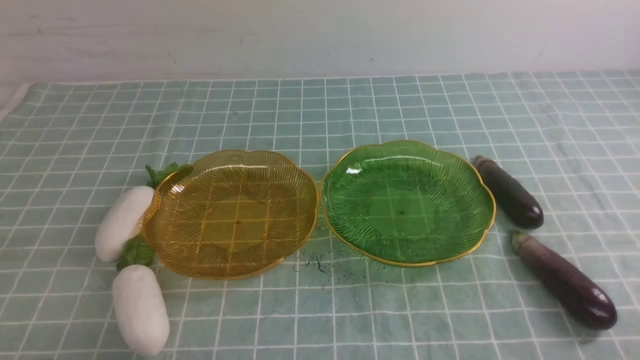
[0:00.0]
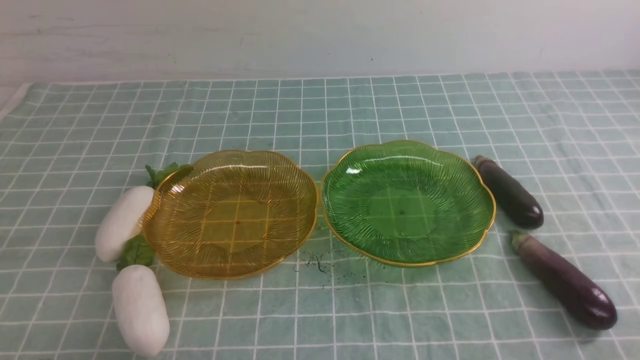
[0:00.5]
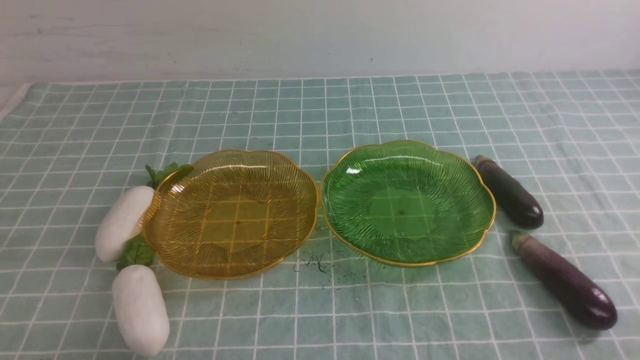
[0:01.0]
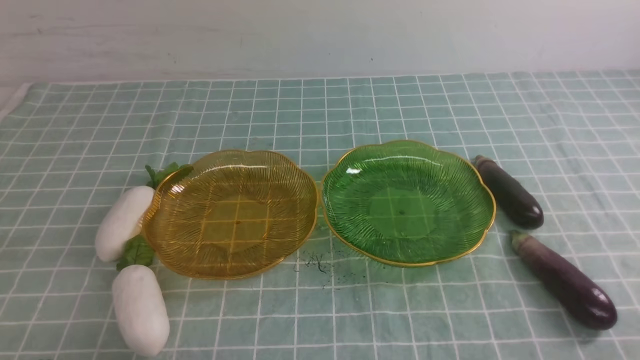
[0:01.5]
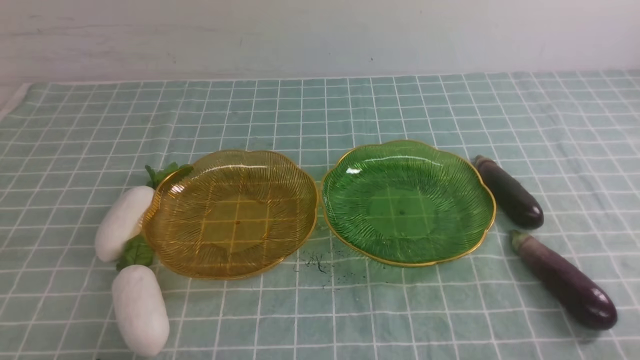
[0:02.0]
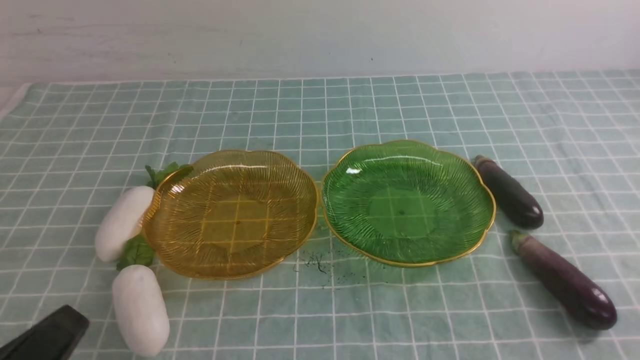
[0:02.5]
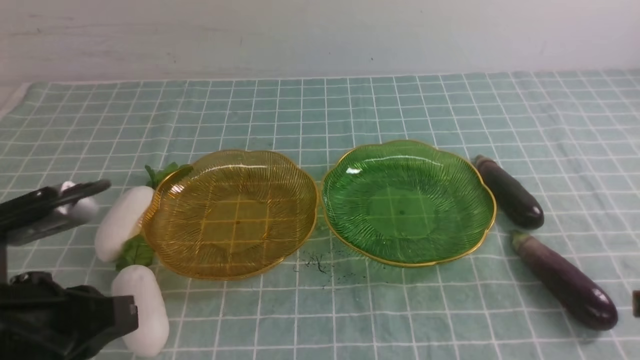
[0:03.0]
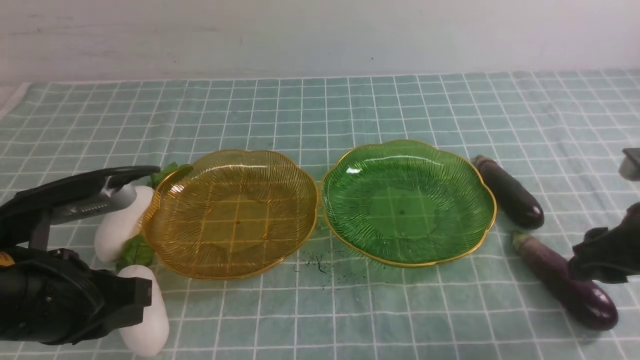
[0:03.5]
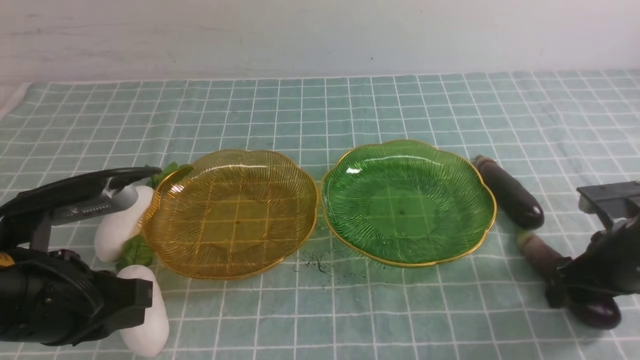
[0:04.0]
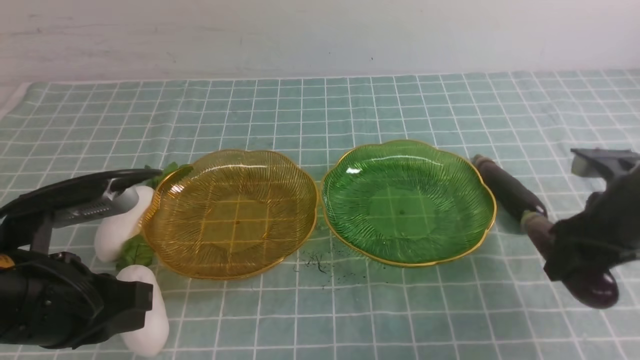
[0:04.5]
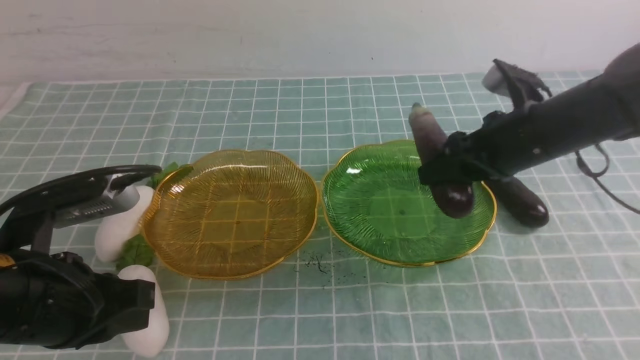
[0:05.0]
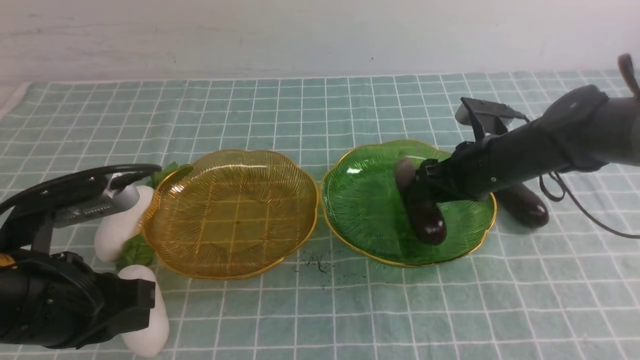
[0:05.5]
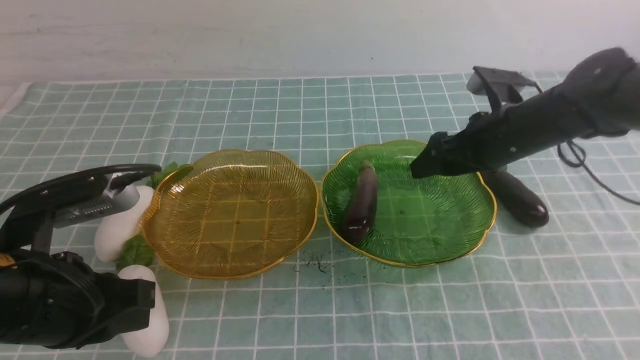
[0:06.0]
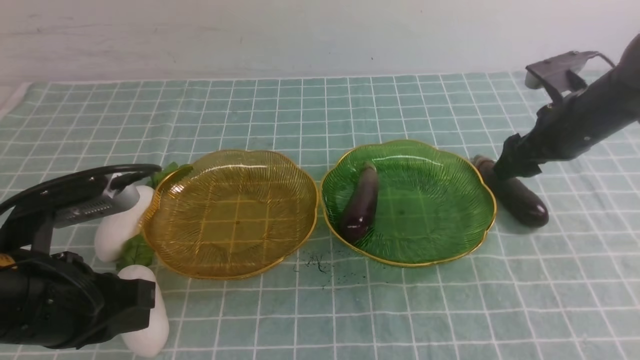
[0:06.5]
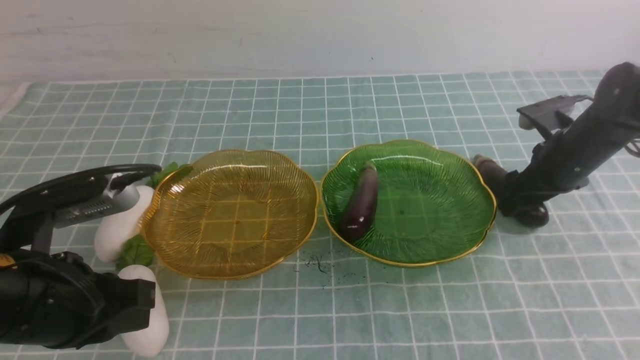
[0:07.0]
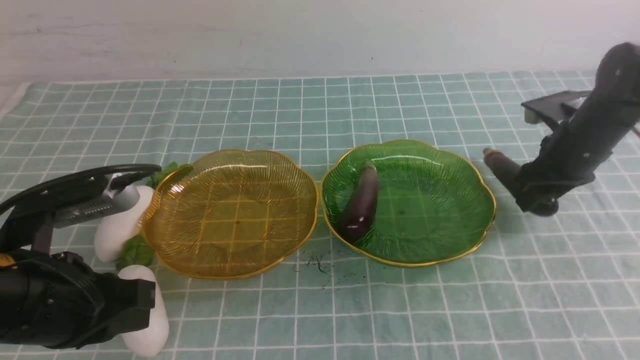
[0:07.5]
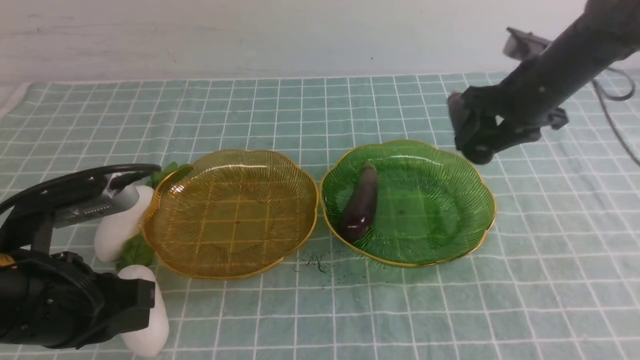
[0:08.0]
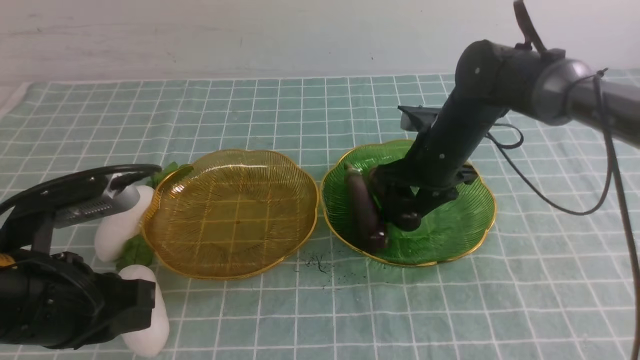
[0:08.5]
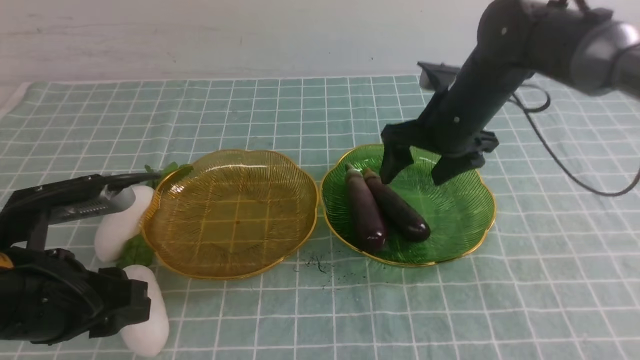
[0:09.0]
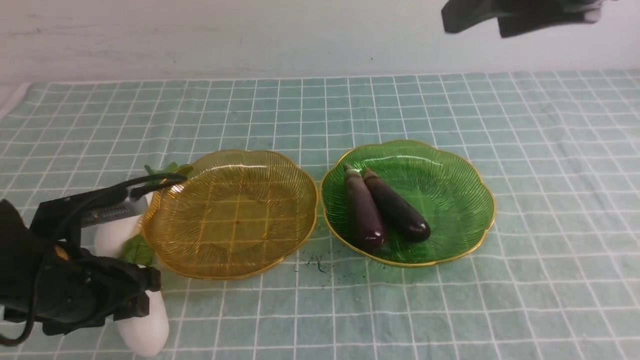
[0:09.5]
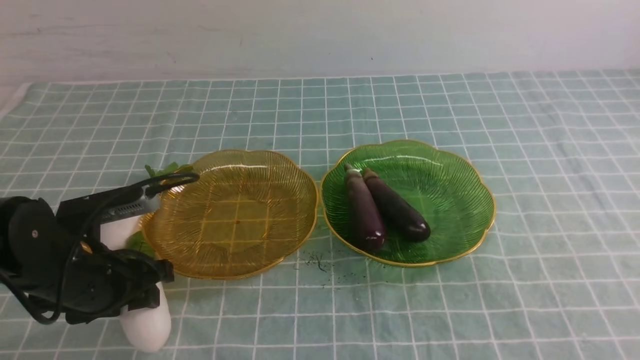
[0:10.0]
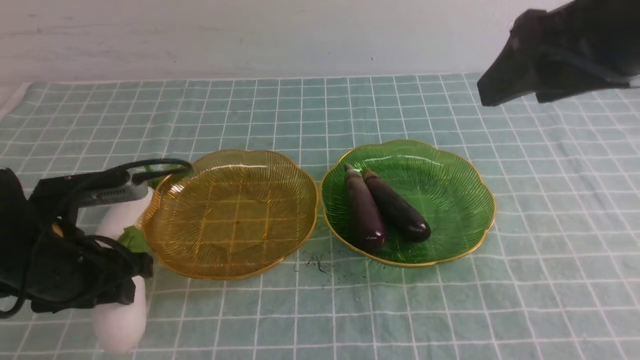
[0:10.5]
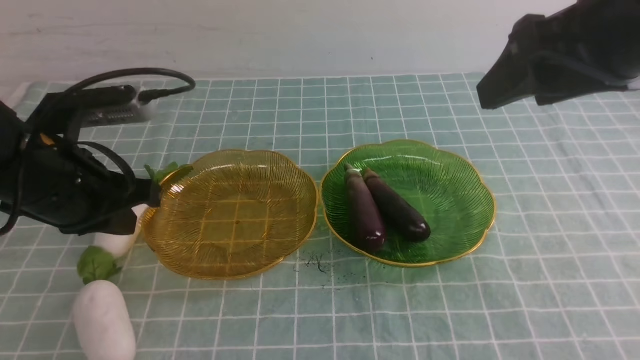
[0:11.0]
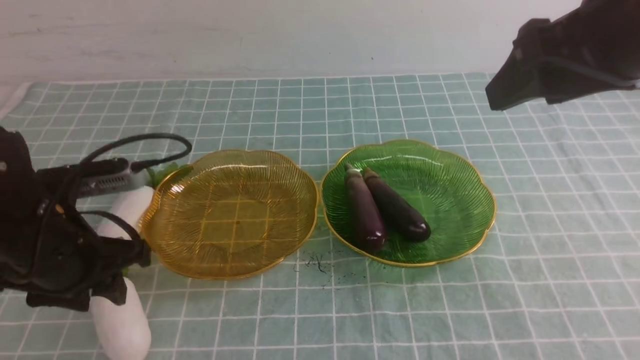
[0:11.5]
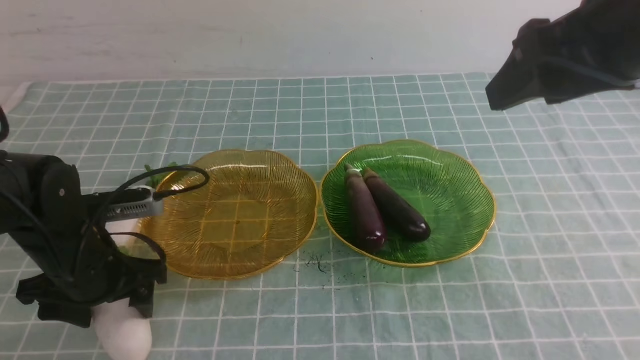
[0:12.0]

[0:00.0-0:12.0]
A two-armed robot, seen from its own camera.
Step, 0:00.0 to 0:08.5: use the right arm to grab an eggplant and put it into the right plate.
0:02.0 to 0:04.0: The right gripper is displaced forward by approximately 25 cm, and opens up. The left gripper goes approximately 15 cm forward and upward.
0:04.0 to 0:06.0: The right gripper heads forward, to the left and upward, covering roughly 15 cm.
0:06.0 to 0:08.0: The right gripper goes to the right and returns, some 10 cm each way, and closes.
0:08.0 to 0:10.0: The right gripper shifts approximately 30 cm upward and backward. The left gripper goes approximately 10 cm downward and forward, and opens.
0:10.0 to 0:12.0: The left gripper travels upward and back again, some 10 cm each way, and closes and opens again. Meanwhile the right gripper is displaced downward by about 5 cm.

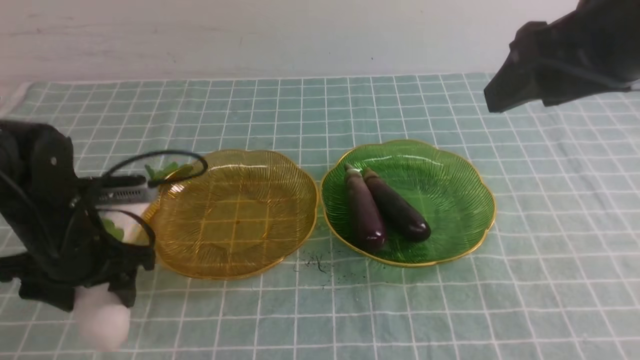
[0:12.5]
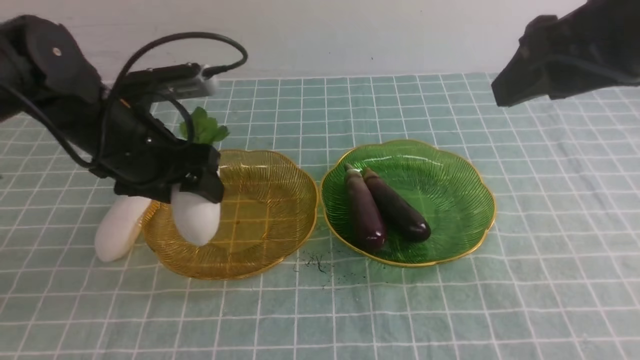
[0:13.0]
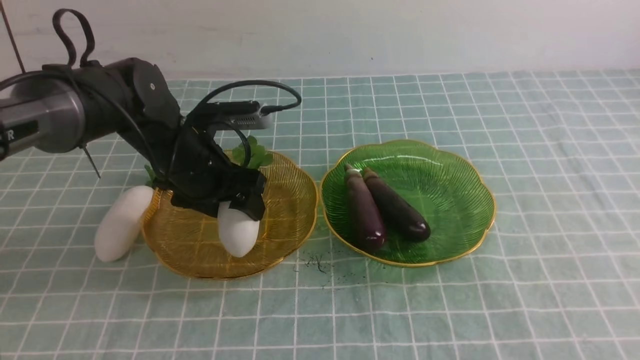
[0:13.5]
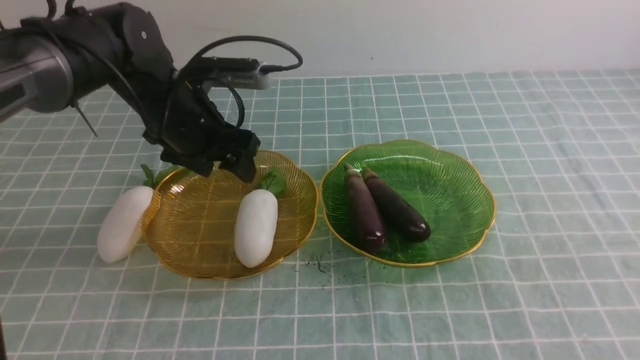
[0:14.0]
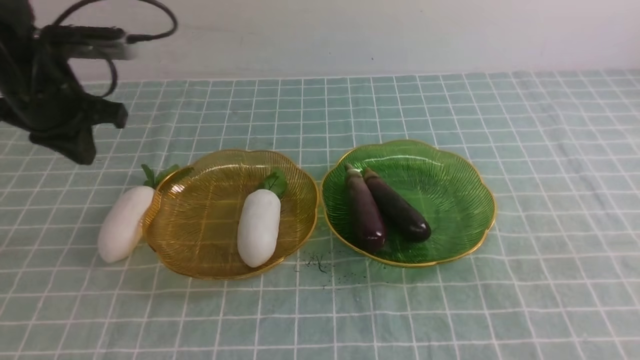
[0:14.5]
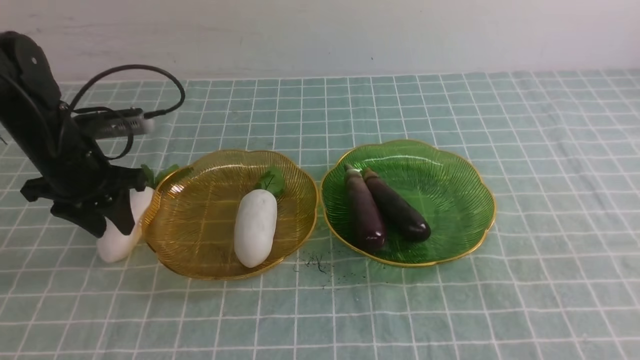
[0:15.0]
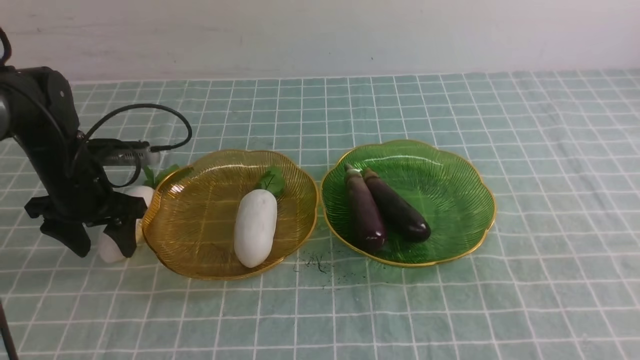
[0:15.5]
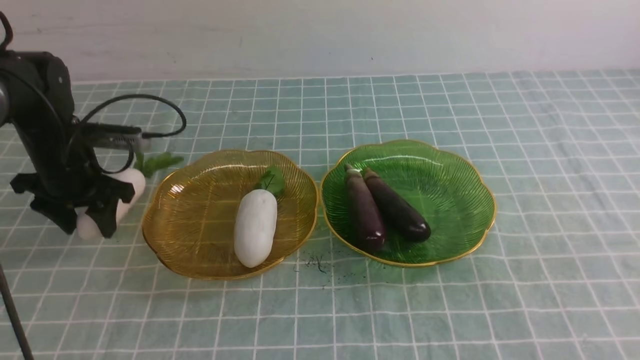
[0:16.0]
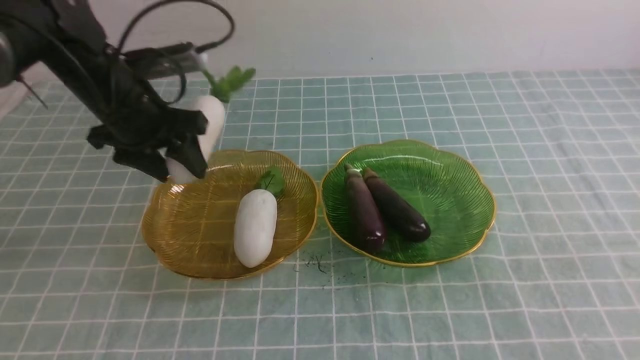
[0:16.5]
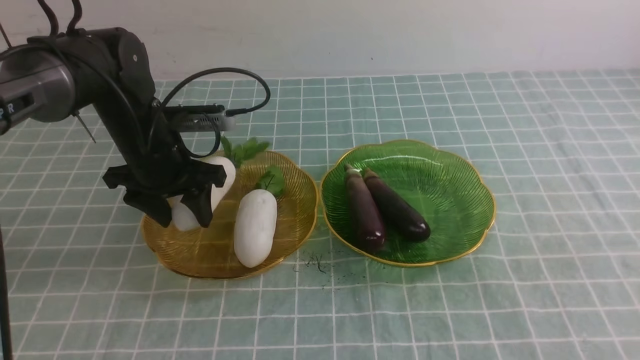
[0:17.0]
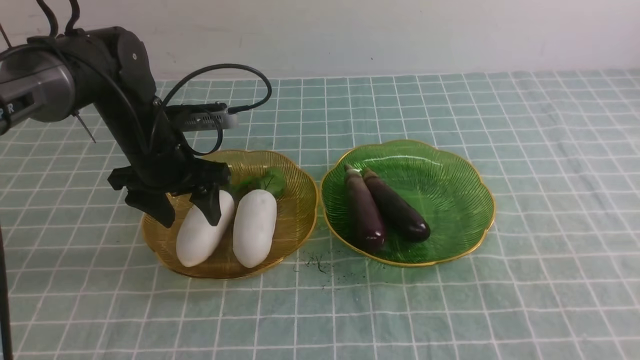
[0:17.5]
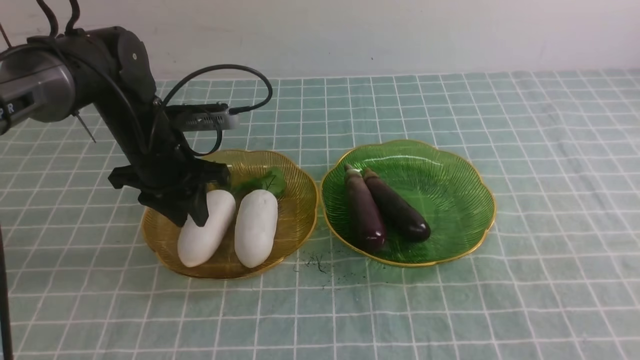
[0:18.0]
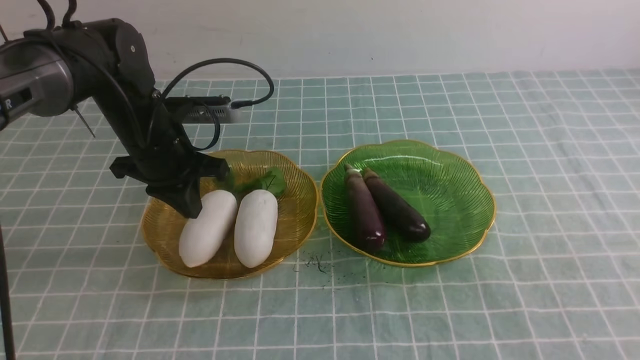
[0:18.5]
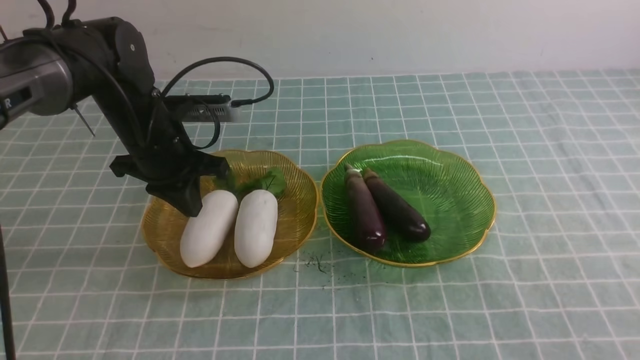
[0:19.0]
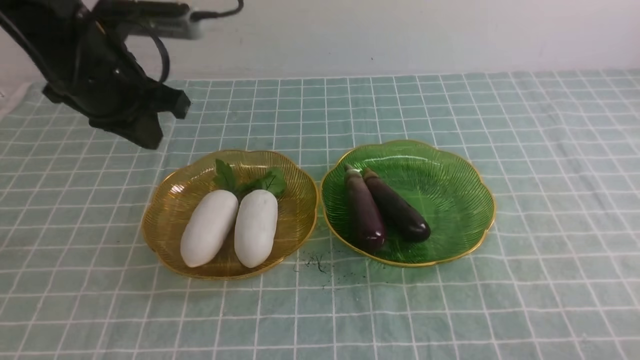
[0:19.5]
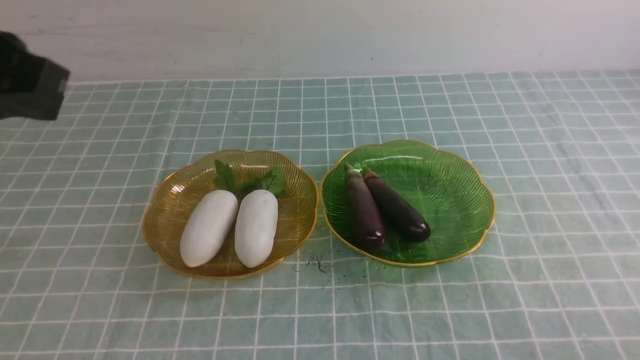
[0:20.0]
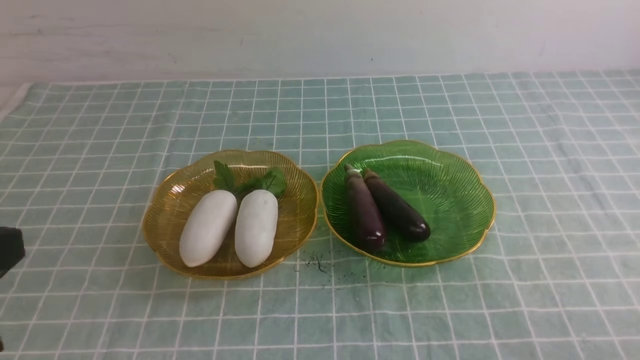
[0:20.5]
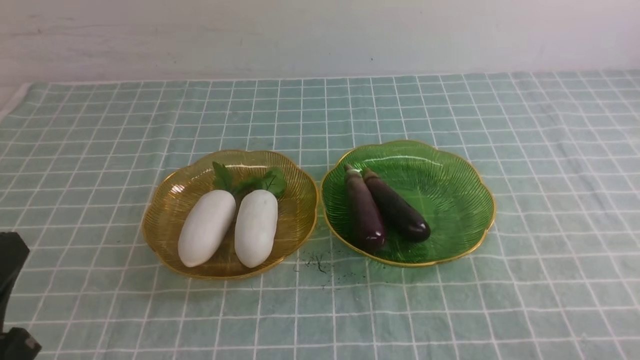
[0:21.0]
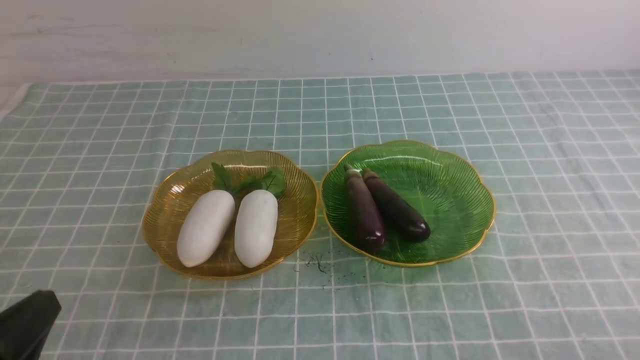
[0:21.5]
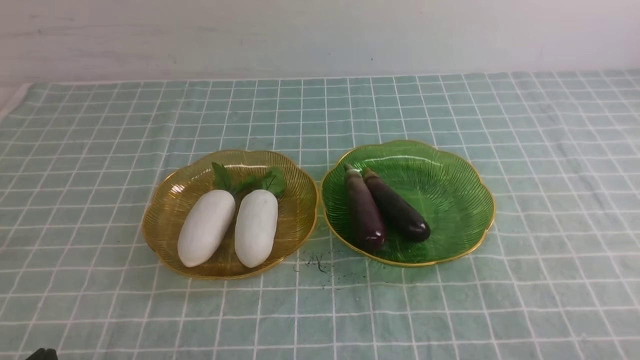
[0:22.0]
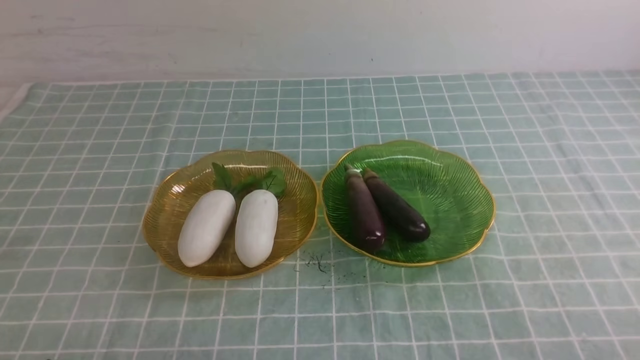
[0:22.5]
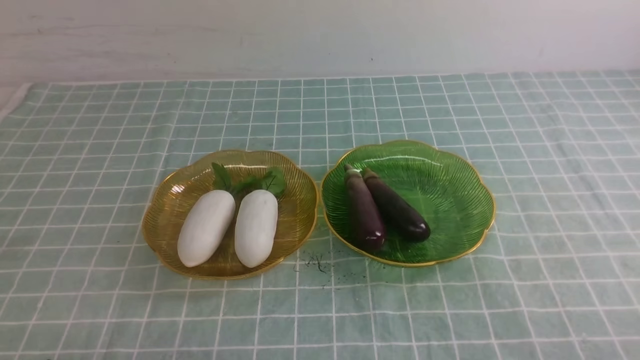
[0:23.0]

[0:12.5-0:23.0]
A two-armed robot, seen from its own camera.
Step, 0:14.0 to 0:17.0: use the left arm to grab a radish and put it into the left plate.
0:12.5 to 0:14.5: The left gripper moves forward and upward, about 10 cm, and closes its fingers, while the right gripper shifts about 20 cm backward and to the right, and closes up.
0:14.5 to 0:16.5: The left gripper heads to the right, covering some 5 cm, moves roughly 10 cm downward and comes back, and opens its fingers.
0:16.5 to 0:19.0: The left gripper closes up, while the right gripper goes roughly 15 cm downward, and closes its fingers.
0:19.0 to 0:21.0: The right gripper is displaced downward by roughly 5 cm. The left gripper shifts some 30 cm backward.
0:21.0 to 0:23.0: The left gripper is displaced downward by about 10 cm.
